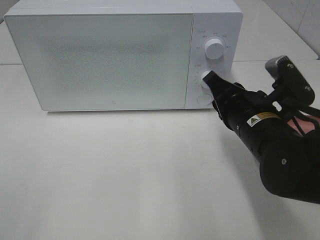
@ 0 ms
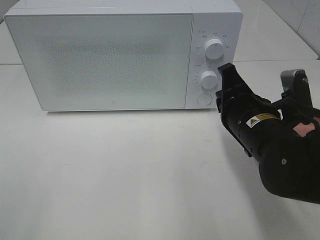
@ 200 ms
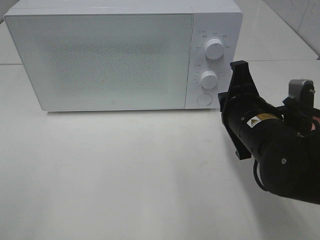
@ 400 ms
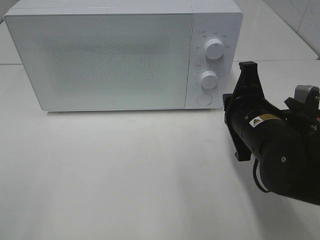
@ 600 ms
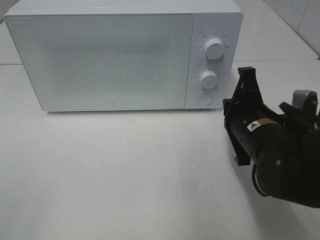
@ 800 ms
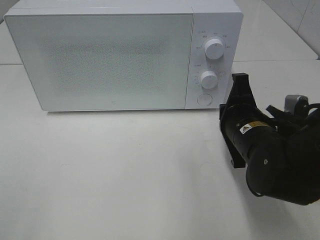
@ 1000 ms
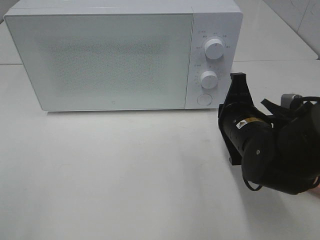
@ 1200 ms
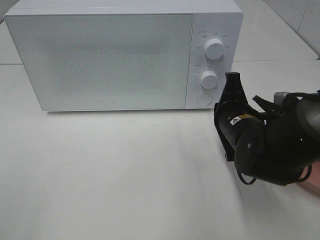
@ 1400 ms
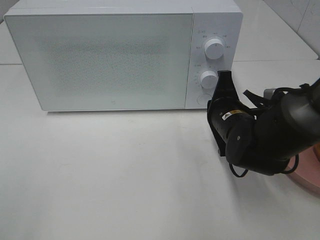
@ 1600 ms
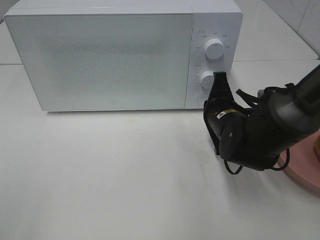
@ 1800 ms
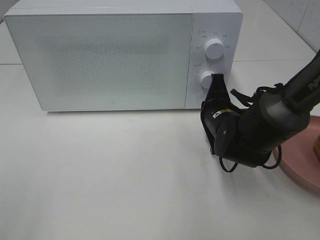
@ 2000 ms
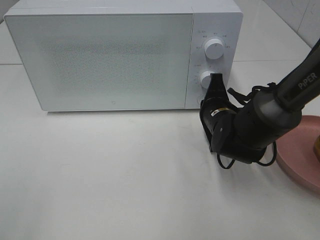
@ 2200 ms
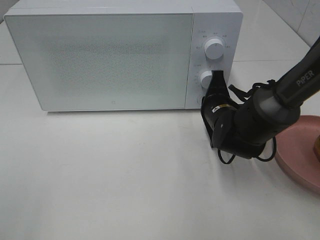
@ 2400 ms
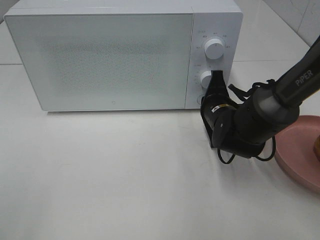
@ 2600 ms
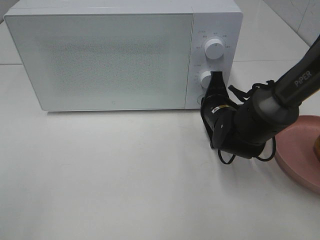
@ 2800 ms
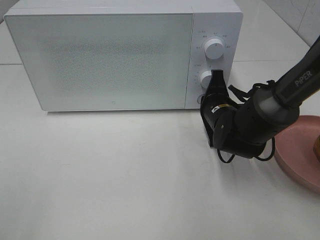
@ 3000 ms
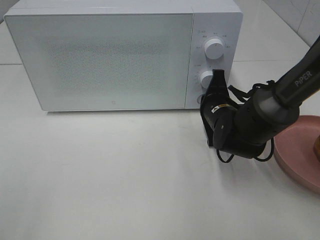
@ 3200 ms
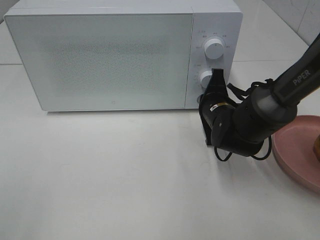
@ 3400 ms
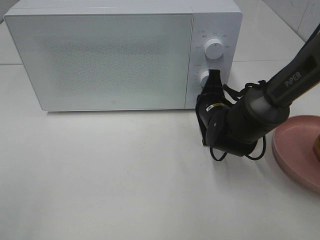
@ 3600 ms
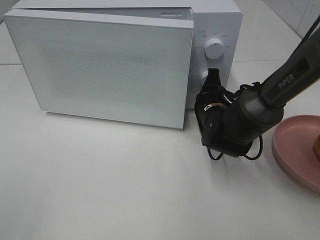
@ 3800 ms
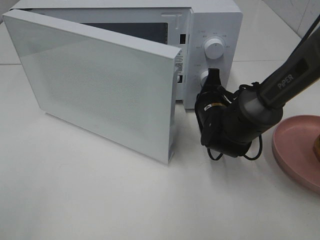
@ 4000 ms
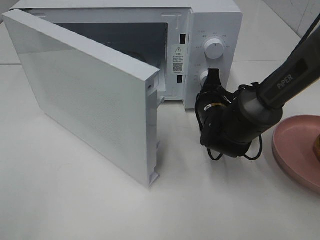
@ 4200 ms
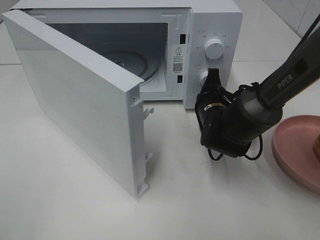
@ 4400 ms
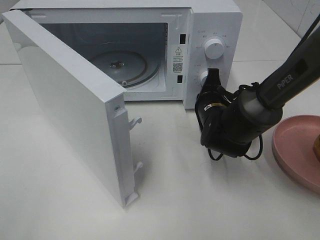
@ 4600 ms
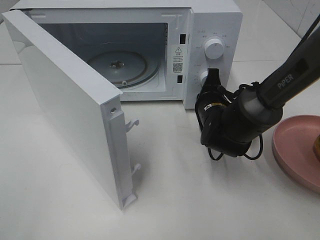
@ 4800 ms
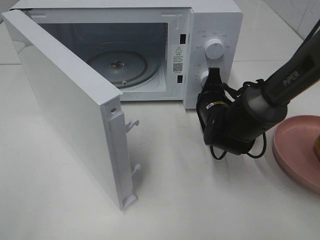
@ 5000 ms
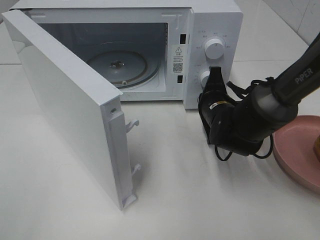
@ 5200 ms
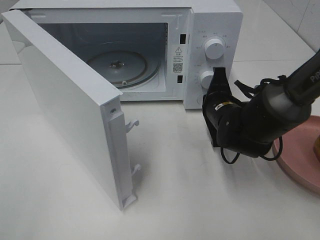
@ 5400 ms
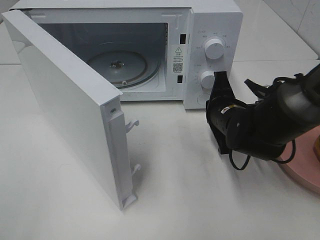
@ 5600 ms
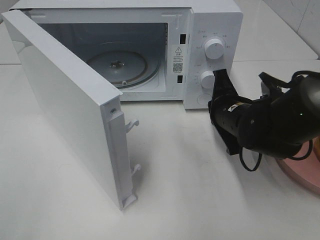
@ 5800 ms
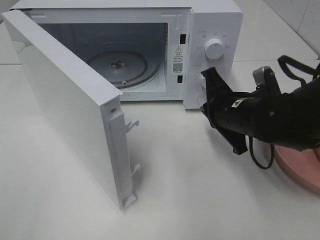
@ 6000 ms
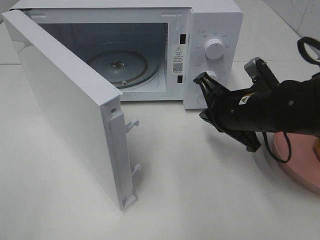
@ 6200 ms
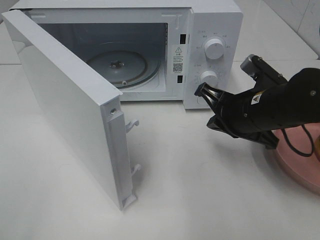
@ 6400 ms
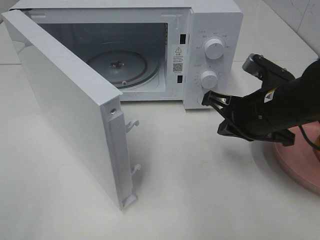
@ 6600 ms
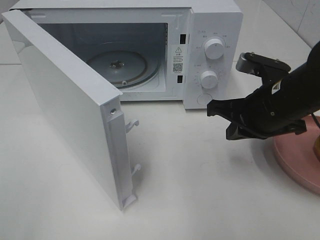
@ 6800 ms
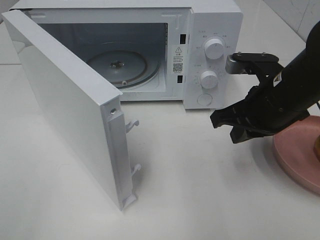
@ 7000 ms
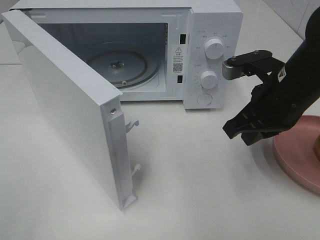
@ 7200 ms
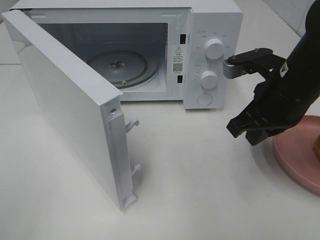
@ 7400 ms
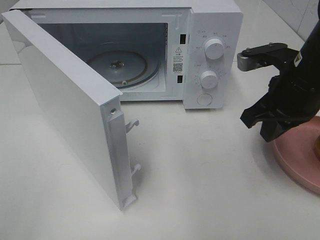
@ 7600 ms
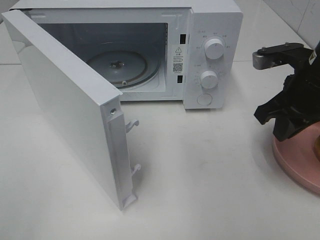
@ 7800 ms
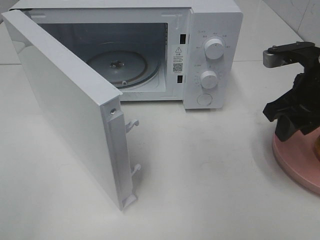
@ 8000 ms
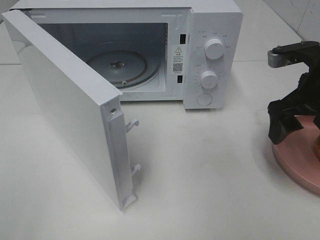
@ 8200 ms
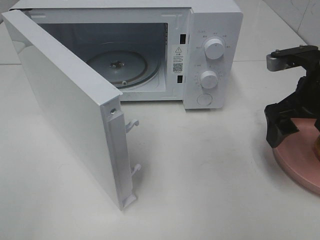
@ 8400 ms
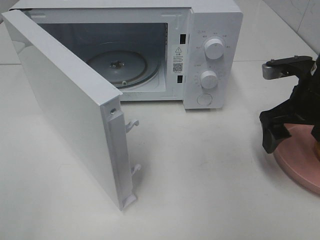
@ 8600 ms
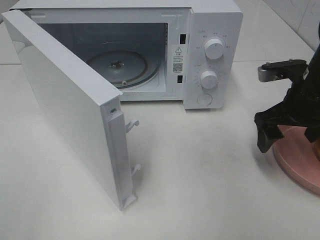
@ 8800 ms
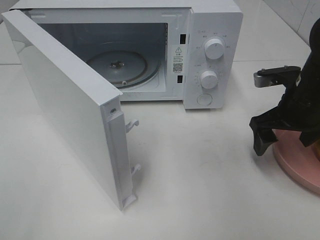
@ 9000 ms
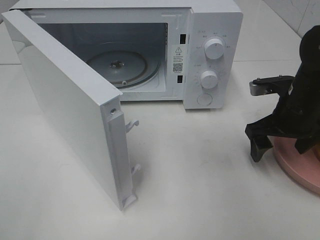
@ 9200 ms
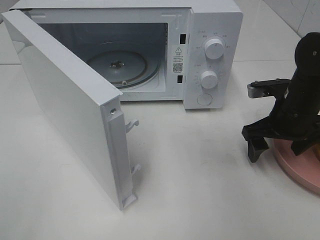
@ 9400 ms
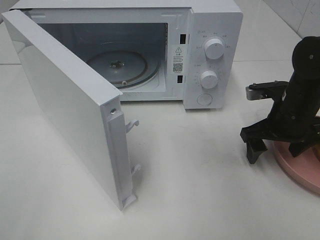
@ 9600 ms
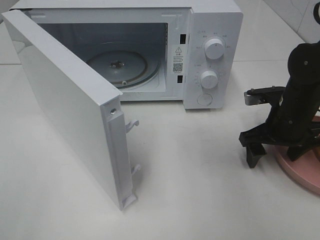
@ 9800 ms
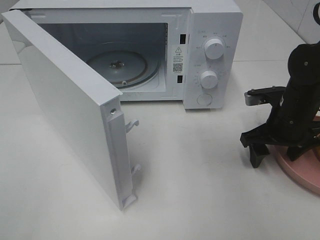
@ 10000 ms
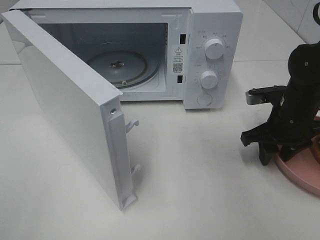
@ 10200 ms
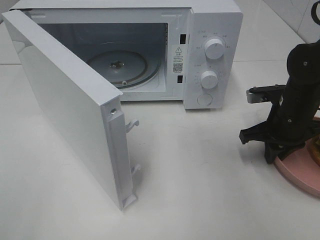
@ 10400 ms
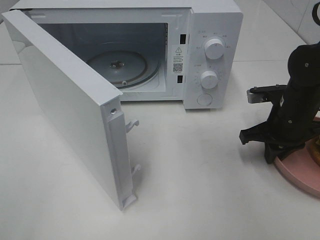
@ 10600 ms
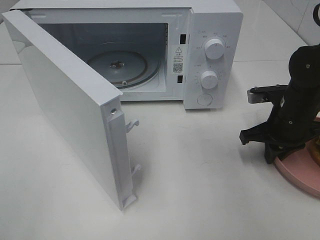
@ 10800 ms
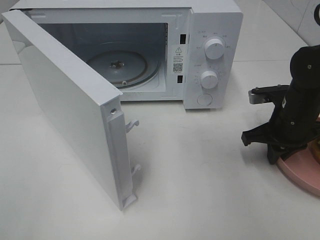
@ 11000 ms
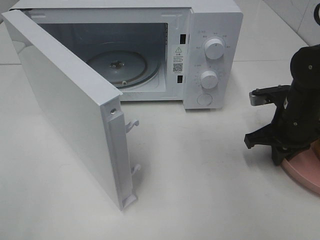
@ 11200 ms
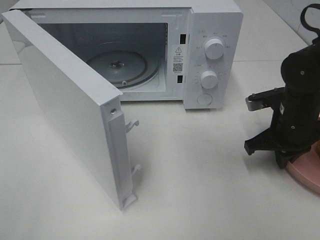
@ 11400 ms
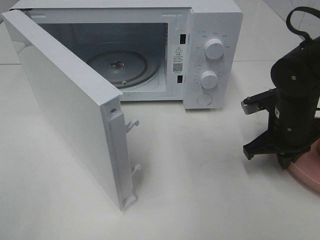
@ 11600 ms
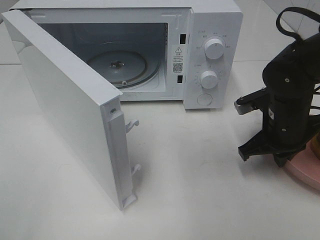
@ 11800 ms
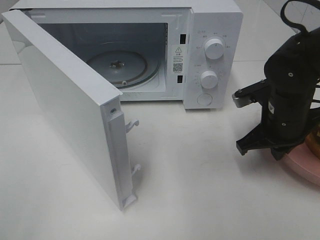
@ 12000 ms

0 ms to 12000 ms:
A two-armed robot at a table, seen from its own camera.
Task of the whole recording: Heat the burger.
Step, 0 ms to 5800 ms: Right hand: press the switch.
Step, 6000 ms to 11800 ms: Right hand: grab the plate with the hamburger.
0 ms to 1600 ms: The right gripper shifts approximately 5 cm forward.
1600 ms to 3000 ms: The right gripper ends up roughly 5 cm from where it was.
4400 ms to 6000 ms: The right gripper goes approximately 10 cm backward and upward.
6000 ms to 7600 ms: The right gripper shifts some 10 cm upward.
7600 ms to 9000 ms: The right gripper goes roughly 5 cm downward, and opens.
9000 ms to 10400 ms: The right gripper shifts by about 5 cm, and closes.
10400 ms to 12000 ms: The right gripper changes place by some 5 cm.

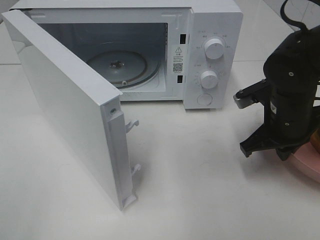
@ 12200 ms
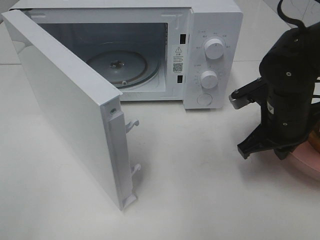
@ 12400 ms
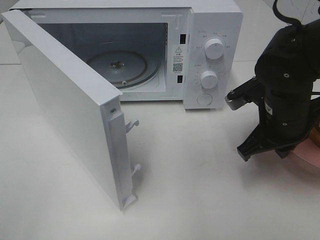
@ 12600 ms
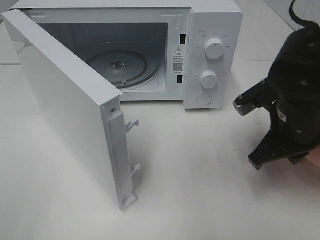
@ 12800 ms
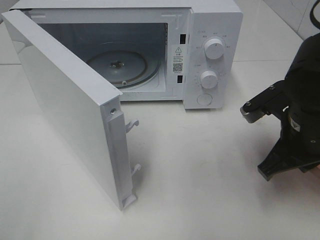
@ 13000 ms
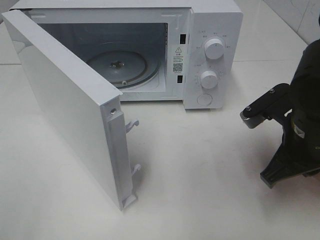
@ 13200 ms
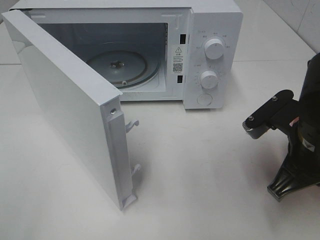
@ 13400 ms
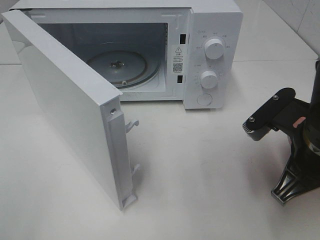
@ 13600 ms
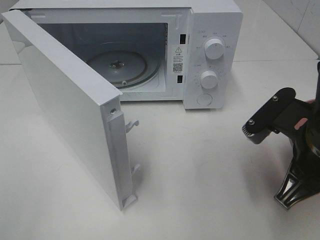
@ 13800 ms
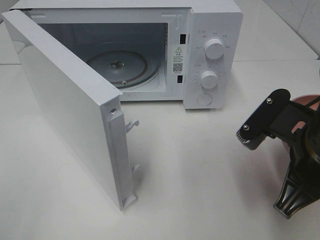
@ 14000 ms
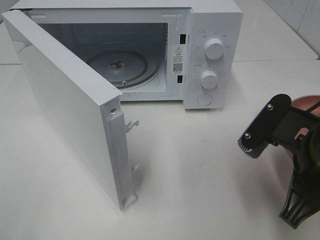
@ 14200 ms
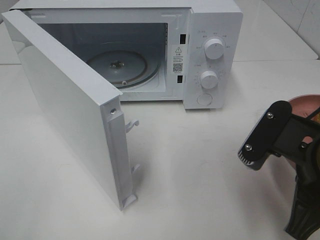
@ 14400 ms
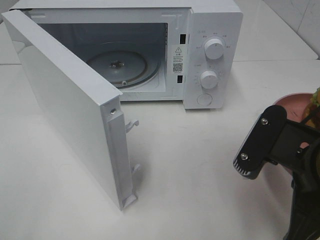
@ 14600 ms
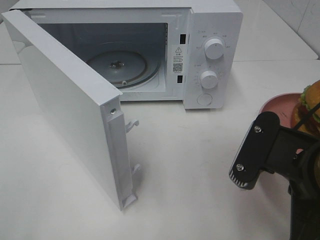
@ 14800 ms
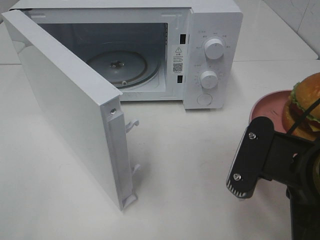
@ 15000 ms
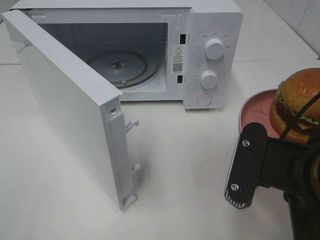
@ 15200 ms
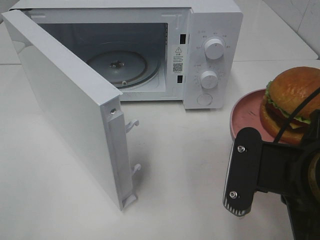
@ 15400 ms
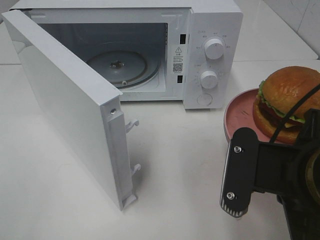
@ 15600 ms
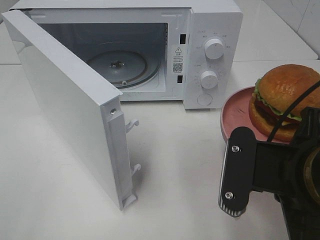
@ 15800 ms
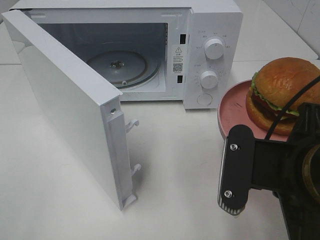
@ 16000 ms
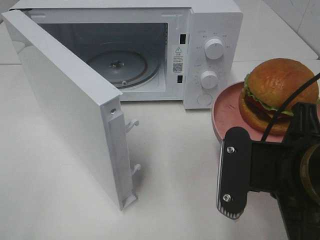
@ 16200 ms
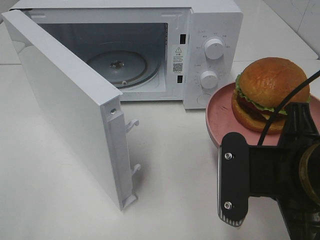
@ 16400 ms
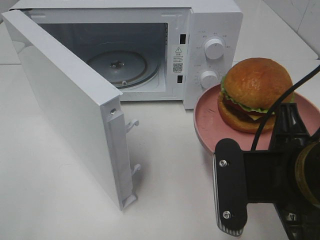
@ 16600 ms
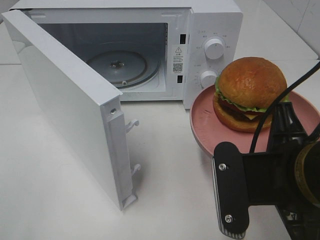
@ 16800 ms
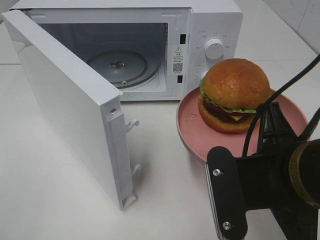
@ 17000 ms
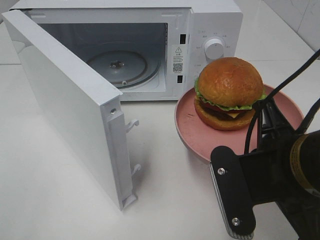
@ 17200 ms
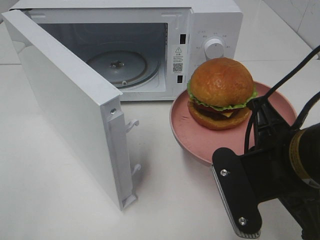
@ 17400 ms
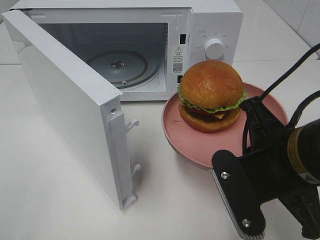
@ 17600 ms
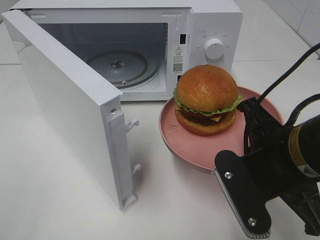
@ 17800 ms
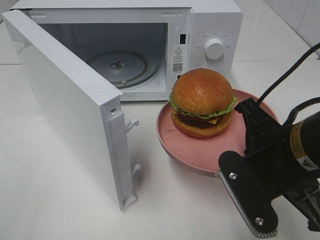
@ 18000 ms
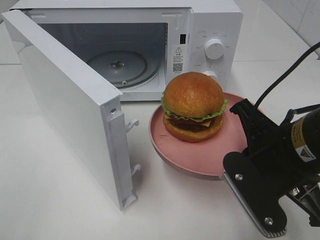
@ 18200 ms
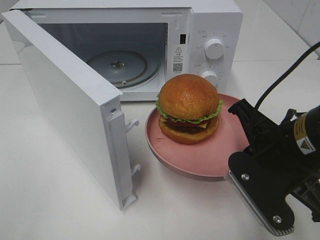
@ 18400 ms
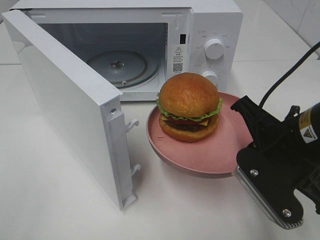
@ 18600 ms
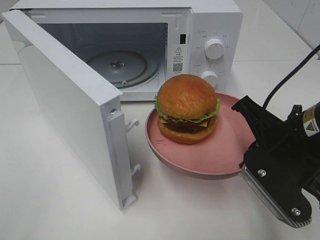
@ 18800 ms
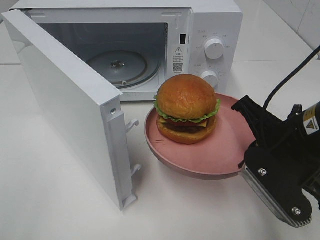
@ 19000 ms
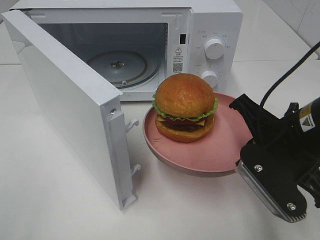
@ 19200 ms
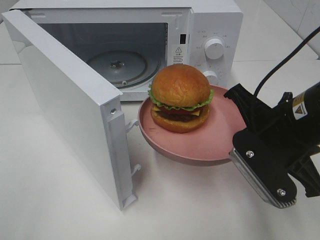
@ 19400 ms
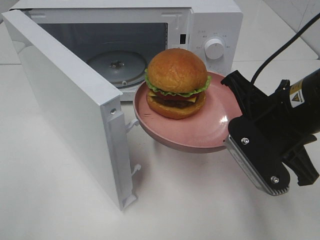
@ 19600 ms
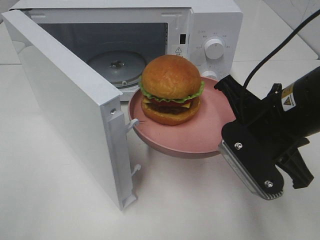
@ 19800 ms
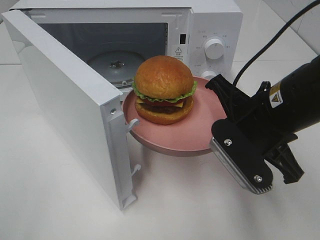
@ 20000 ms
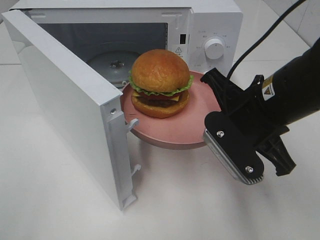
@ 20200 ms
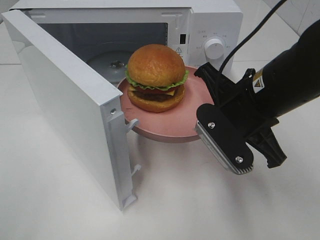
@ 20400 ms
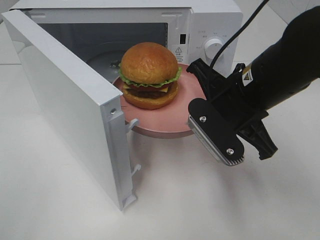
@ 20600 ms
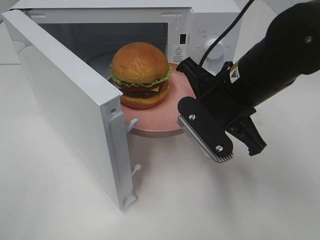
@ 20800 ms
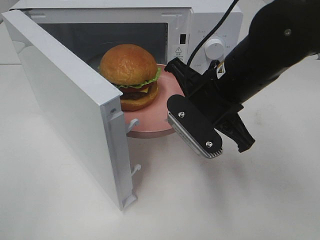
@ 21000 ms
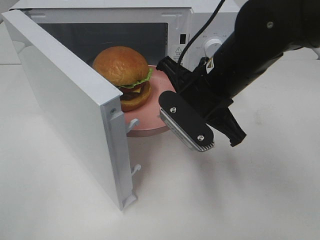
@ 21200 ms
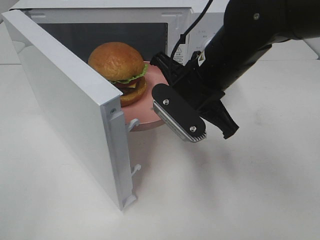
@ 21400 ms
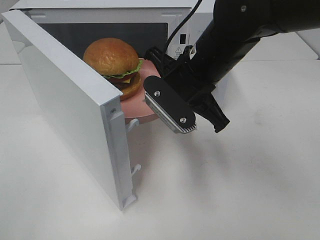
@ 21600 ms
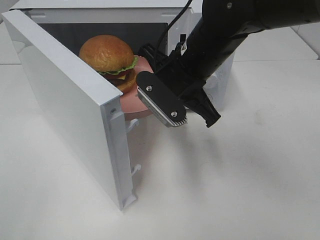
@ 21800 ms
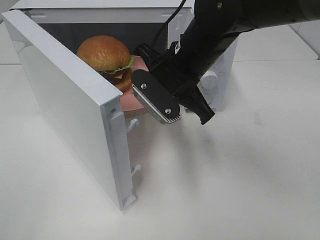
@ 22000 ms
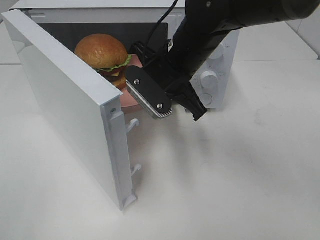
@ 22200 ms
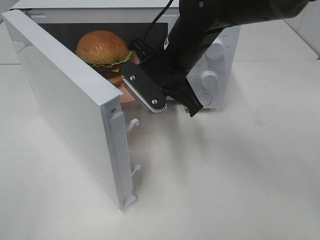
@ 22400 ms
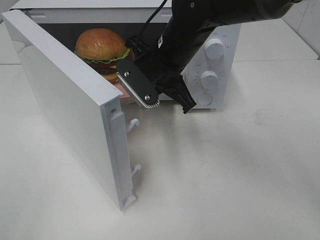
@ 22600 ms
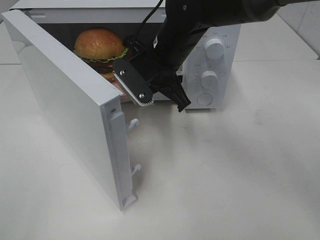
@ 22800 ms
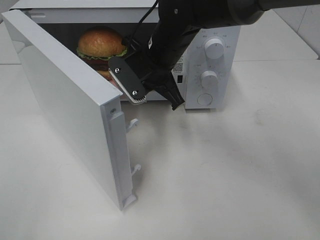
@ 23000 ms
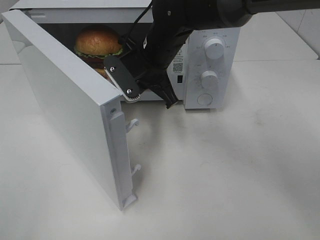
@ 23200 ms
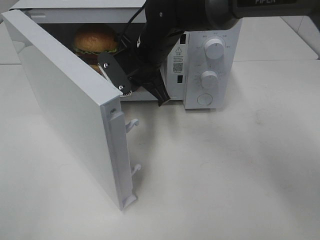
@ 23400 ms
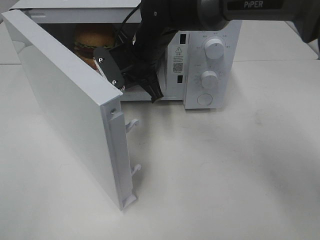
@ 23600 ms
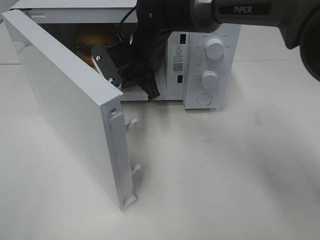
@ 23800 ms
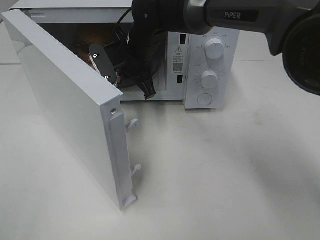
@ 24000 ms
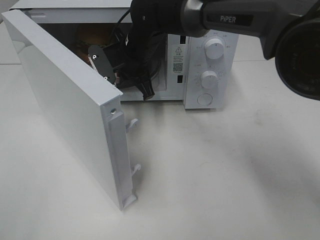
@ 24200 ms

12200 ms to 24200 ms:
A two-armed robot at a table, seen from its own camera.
Task of the whole recording: Heat the burger.
12200 ms to 13800 ms: The right gripper moves backward, approximately 10 cm.
13800 ms to 15200 ms: The right gripper shifts approximately 5 cm backward.
16600 ms to 18200 ms: The right gripper moves roughly 5 cm.
19800 ms to 21200 ms: The right gripper goes some 10 cm to the left and forward.
21200 ms to 22600 ms: The right gripper is displaced forward and to the left by about 10 cm.
22600 ms to 24200 ms: The right gripper moves forward and to the left, about 10 cm.
